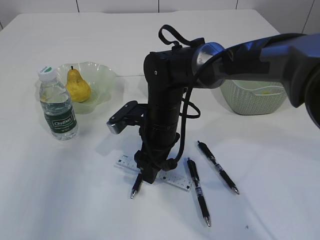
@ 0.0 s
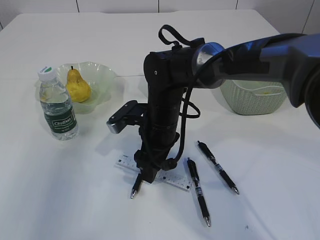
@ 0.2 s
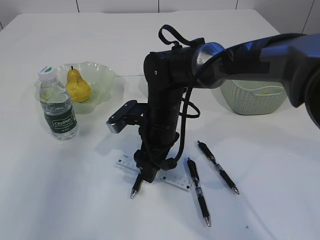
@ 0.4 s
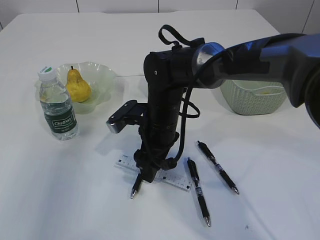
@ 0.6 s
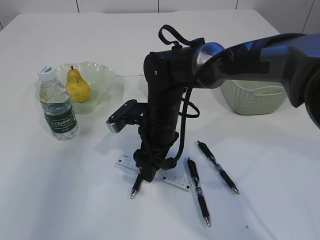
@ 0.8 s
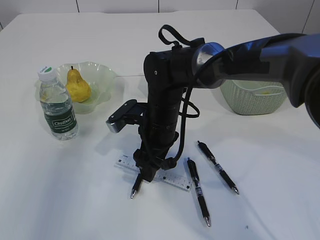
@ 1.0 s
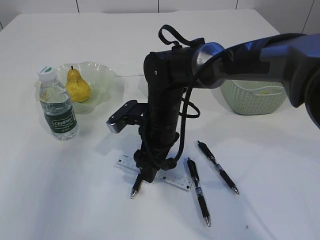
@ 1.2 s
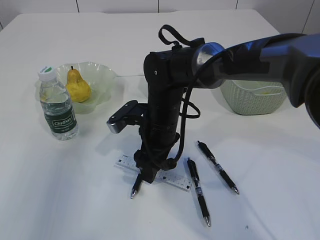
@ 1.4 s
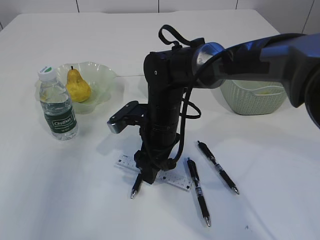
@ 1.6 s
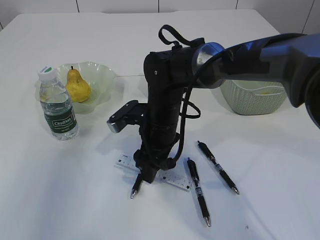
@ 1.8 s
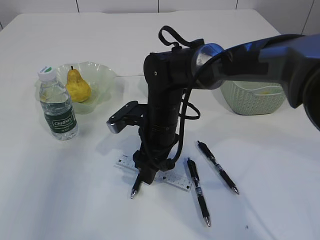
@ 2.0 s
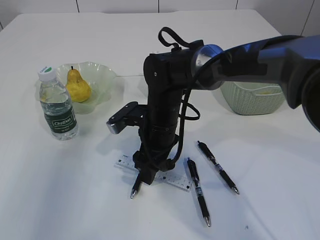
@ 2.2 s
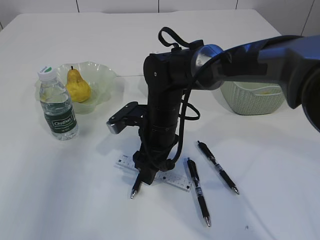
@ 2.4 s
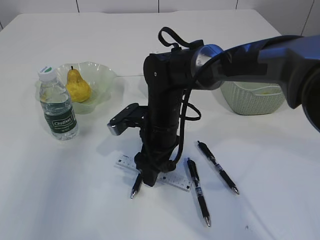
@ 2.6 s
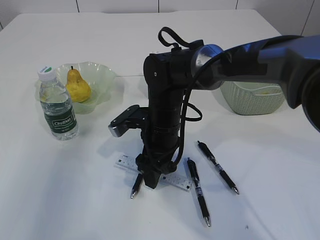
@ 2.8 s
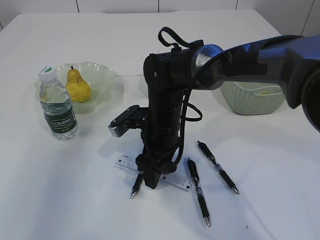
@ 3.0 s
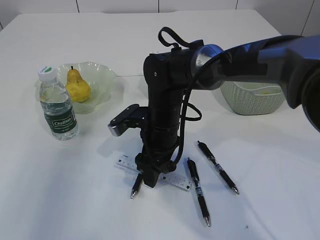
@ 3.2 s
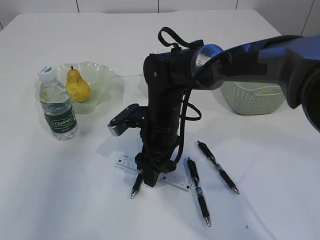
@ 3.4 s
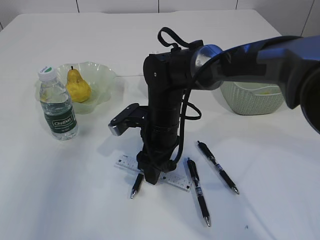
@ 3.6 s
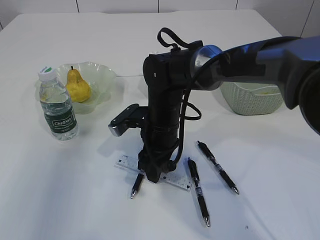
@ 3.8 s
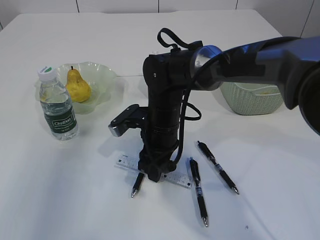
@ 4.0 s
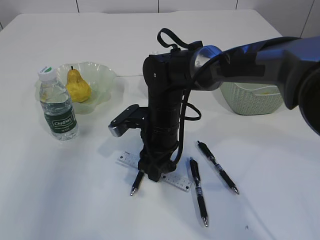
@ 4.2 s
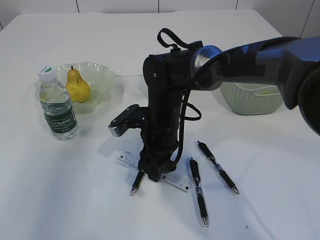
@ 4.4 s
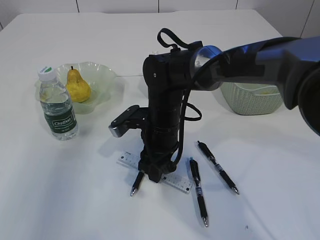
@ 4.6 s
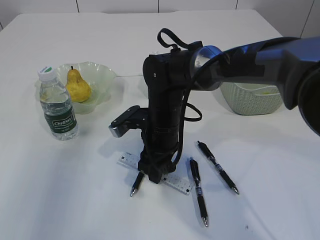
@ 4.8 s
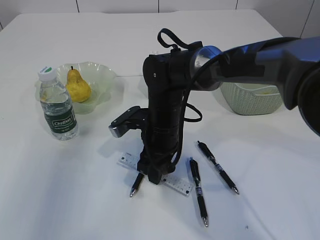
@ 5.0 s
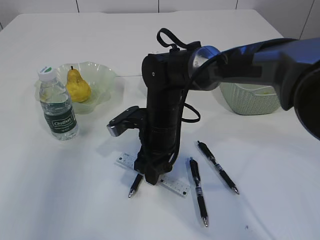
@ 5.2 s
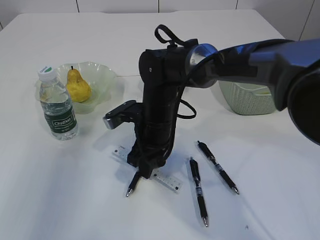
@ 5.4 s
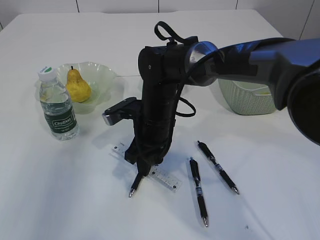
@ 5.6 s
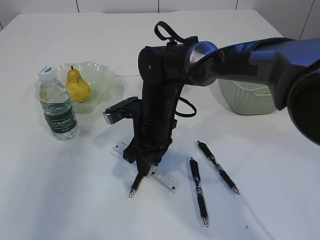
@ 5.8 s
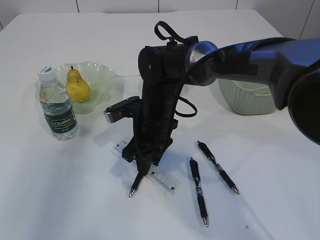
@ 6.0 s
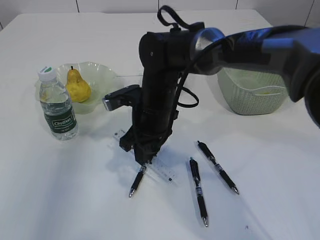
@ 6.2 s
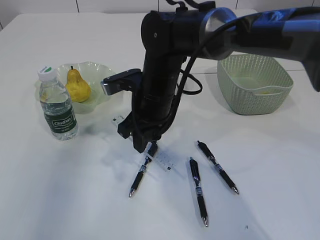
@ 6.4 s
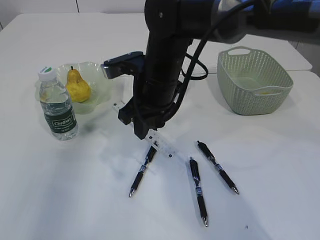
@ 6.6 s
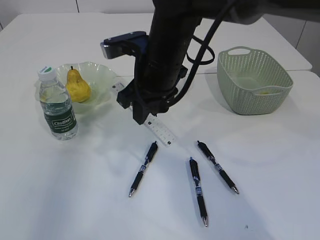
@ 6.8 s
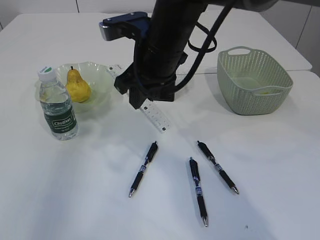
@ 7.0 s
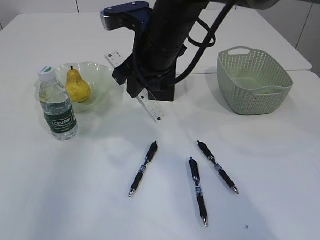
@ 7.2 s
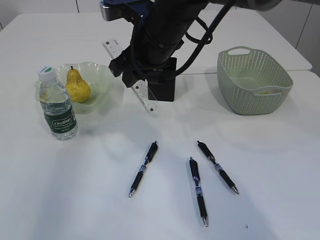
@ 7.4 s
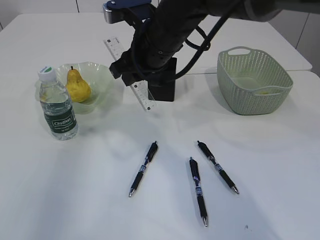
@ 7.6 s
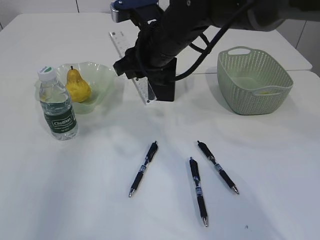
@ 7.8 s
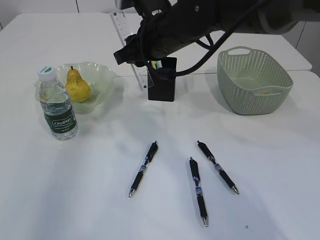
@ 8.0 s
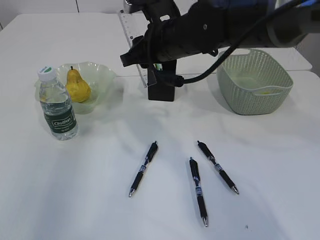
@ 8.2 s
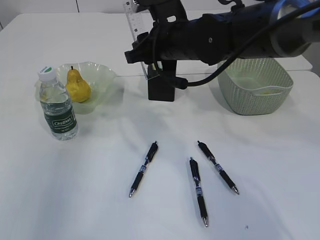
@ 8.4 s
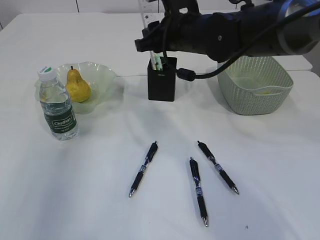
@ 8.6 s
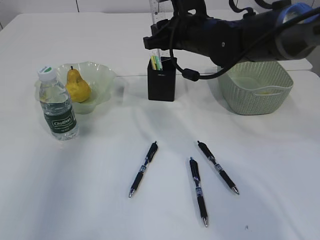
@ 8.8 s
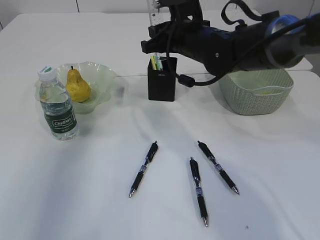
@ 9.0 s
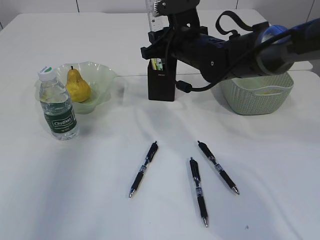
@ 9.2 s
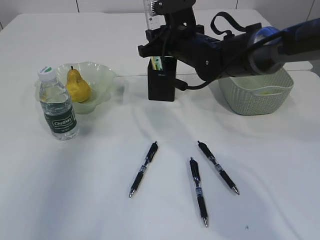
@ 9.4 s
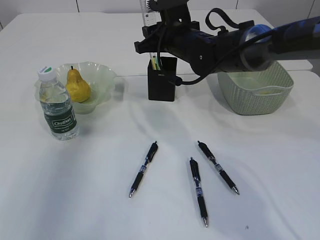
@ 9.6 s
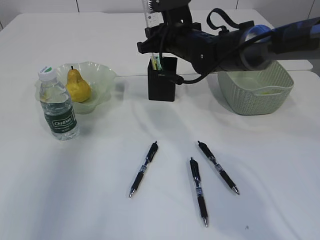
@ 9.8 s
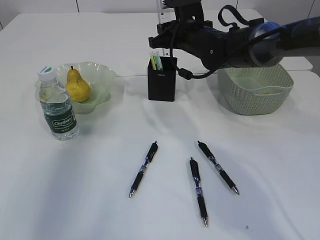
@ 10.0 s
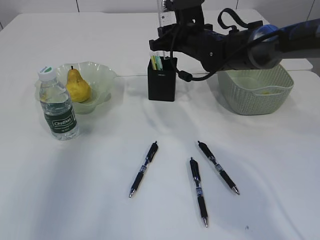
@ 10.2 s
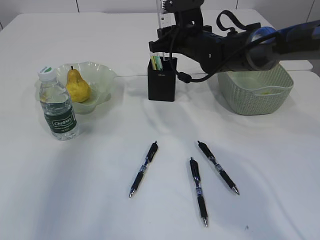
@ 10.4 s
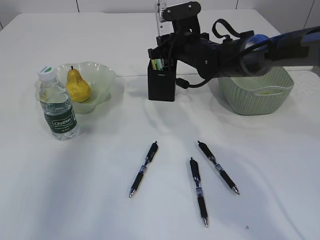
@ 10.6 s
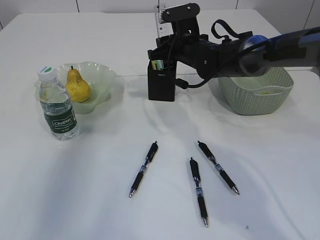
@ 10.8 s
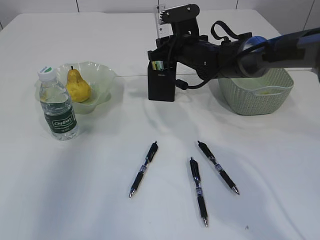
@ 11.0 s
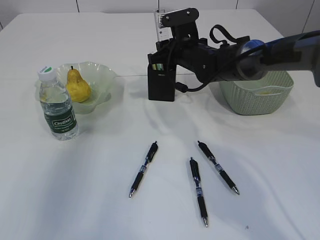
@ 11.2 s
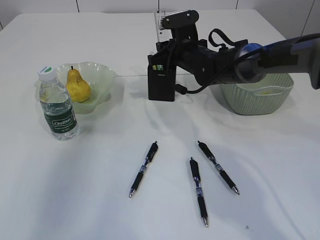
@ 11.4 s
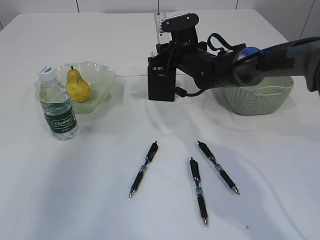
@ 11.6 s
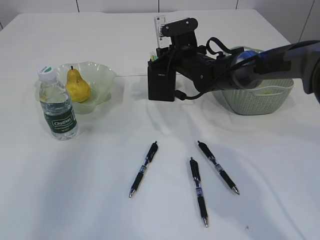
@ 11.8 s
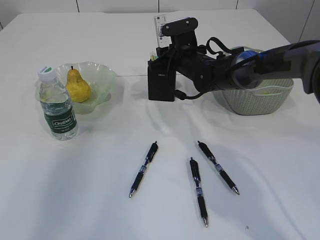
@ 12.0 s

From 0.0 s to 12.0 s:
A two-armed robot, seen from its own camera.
Step, from 0.0 s to 6.4 s: pick up the ruler.
From 0.0 s to 3.0 s: Both grippers stay about where they are.
From 3.0 s to 4.4 s: The right gripper closes.
From 4.4 s to 6.0 s: There are only small adjustments of the grippers.
From 6.0 s to 7.6 s: The right gripper goes about 15 cm upward.
From 7.6 s to 9.0 s: The right gripper is displaced to the right and forward by approximately 10 cm.
From 9.0 s to 10.4 s: The right gripper is displaced forward by about 5 cm.
From 10.4 s to 12.0 s: The right gripper shifts some 5 cm downward.

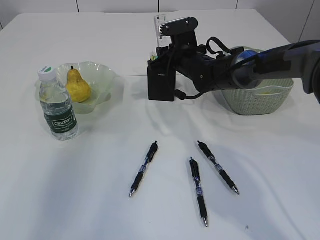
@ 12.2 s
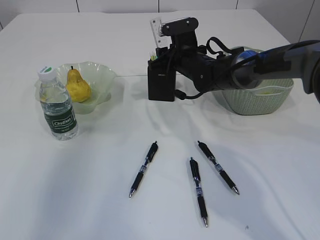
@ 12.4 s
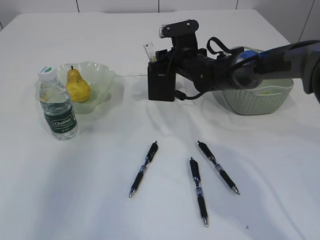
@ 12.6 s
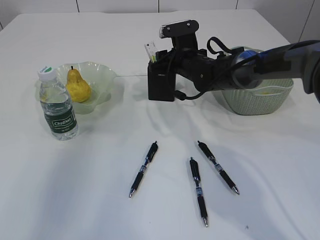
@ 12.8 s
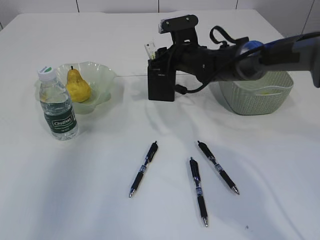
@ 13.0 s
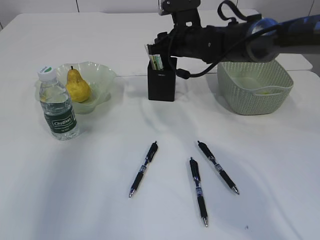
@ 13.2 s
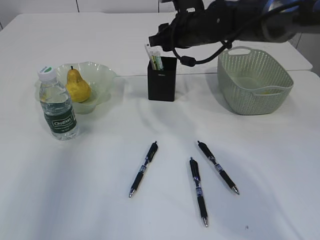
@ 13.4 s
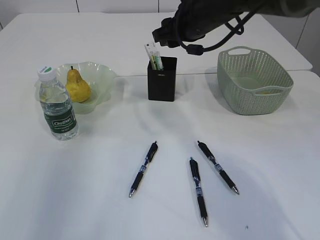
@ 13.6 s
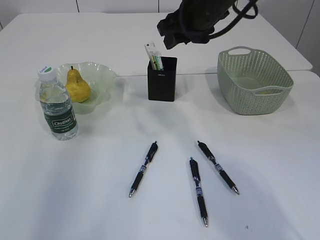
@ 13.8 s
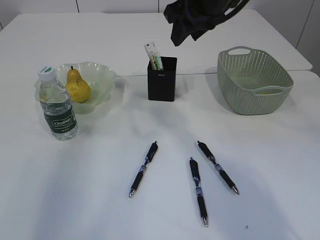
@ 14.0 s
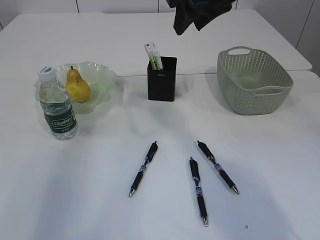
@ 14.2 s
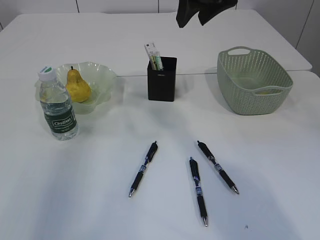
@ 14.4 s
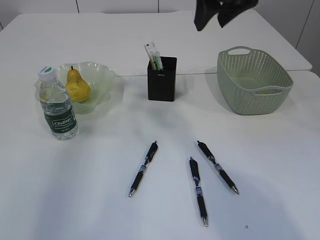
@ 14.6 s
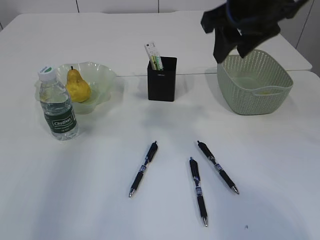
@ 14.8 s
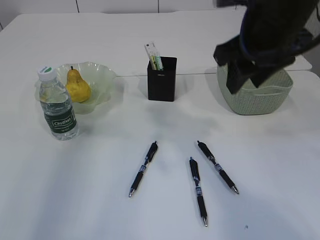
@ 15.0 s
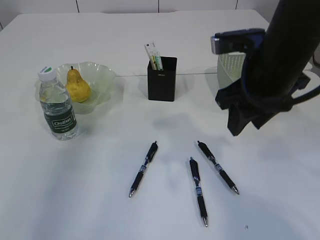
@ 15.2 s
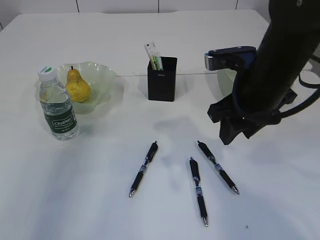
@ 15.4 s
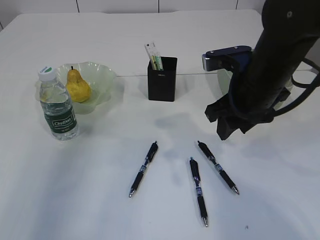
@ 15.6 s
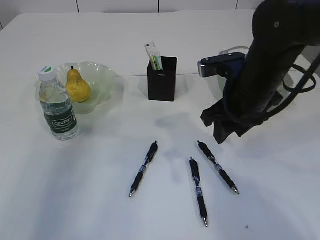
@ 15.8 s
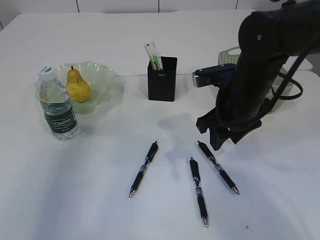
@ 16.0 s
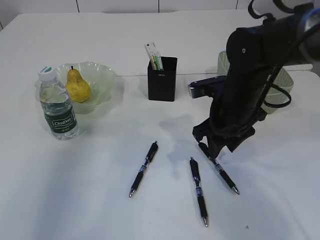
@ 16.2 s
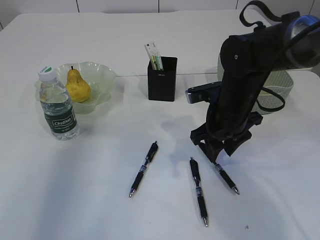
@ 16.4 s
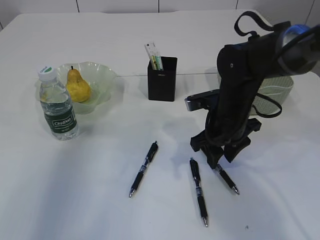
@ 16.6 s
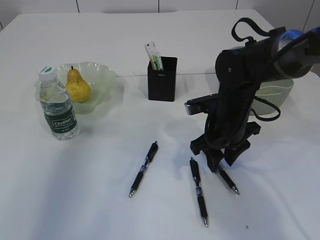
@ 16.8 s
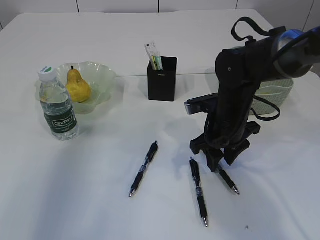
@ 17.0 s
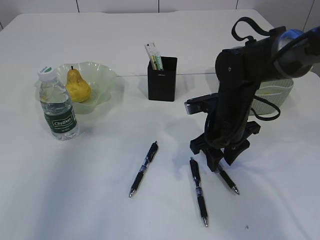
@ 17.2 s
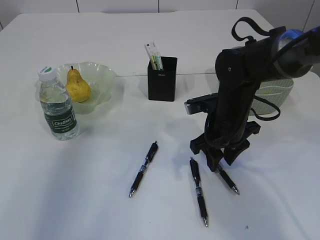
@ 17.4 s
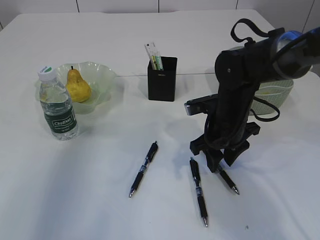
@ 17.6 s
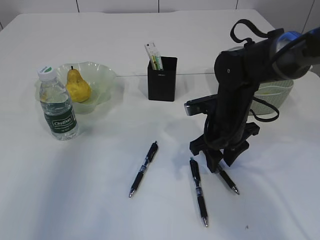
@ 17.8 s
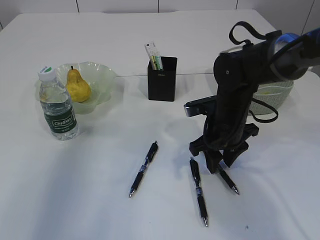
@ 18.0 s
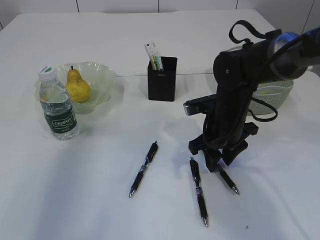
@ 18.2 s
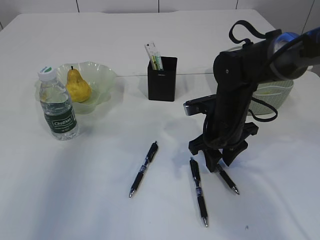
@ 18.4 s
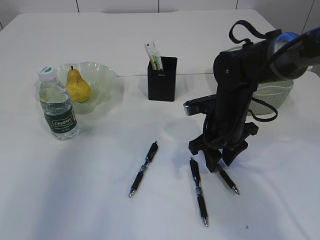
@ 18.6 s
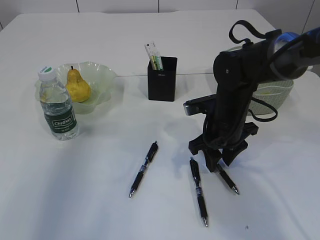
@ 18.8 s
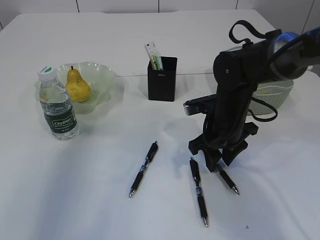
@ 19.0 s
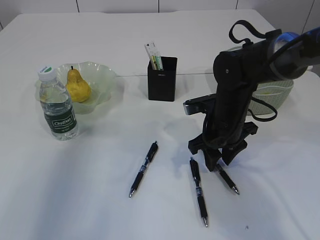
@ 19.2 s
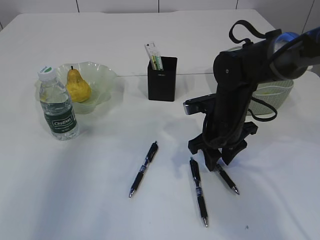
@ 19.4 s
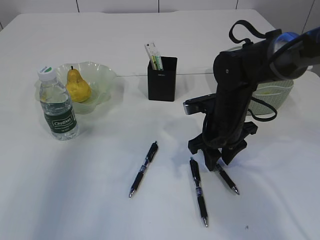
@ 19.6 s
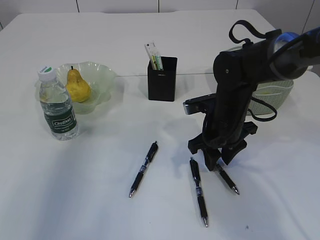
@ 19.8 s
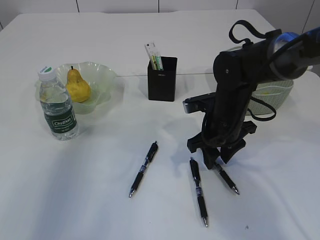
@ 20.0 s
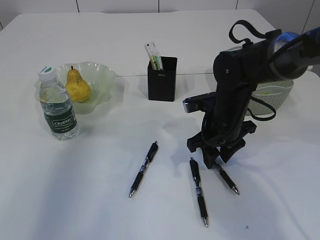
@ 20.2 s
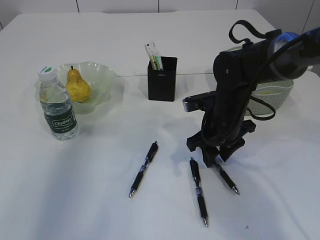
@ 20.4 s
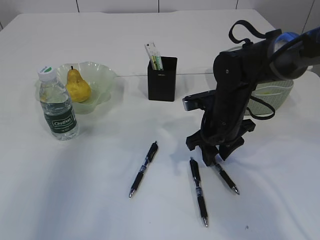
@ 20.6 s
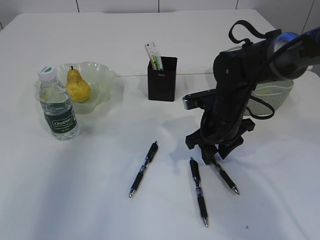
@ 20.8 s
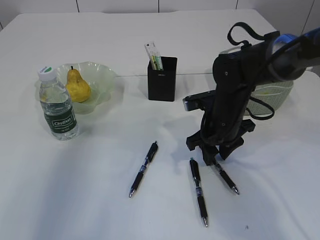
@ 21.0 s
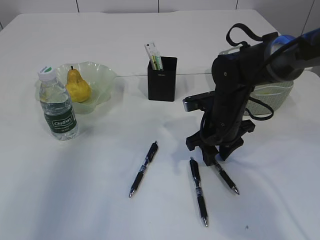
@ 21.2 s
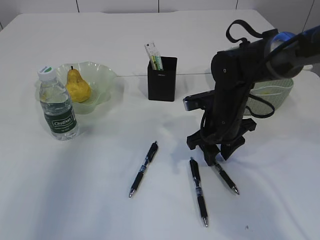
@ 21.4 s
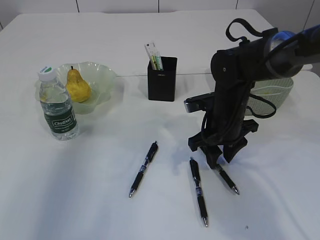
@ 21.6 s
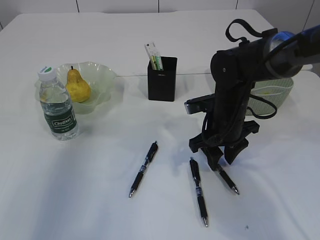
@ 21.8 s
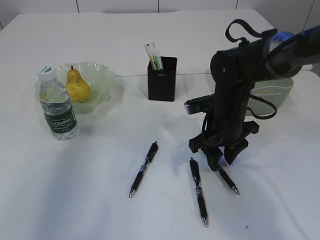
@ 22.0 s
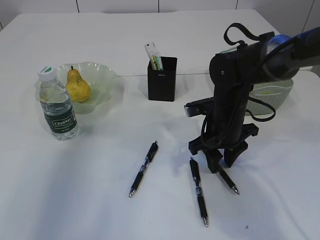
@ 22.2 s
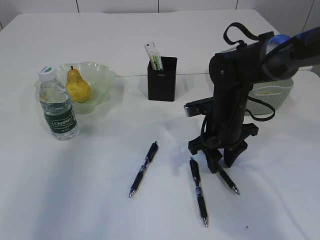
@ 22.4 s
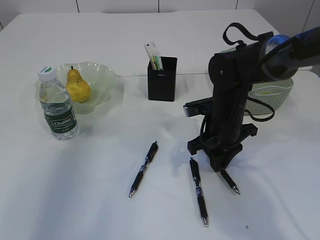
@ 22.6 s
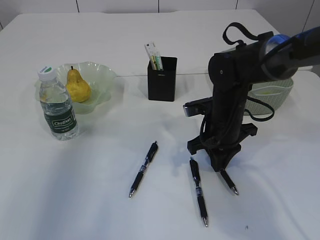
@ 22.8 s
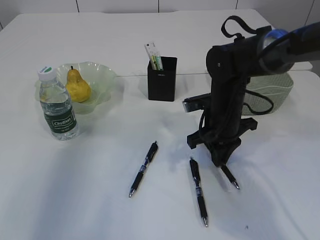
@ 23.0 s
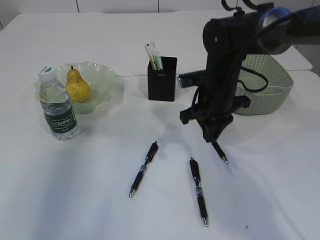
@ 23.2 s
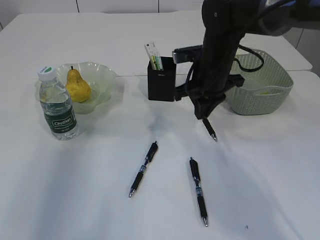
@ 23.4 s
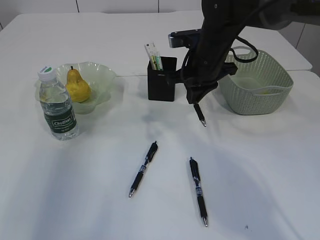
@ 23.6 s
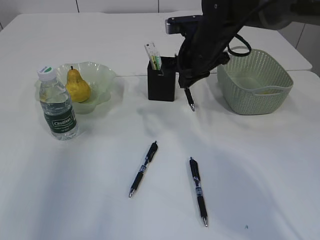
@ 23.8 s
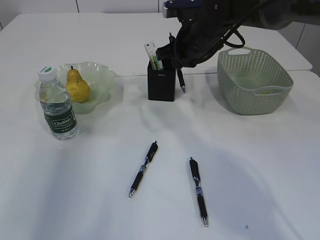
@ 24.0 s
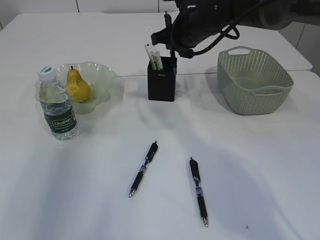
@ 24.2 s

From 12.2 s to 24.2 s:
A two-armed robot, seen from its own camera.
Step, from 13.6 s to 23.2 s: Pick up the pen with right arm.
From 12.2 s to 13.8 s: The right gripper travels upward and backward by approximately 15 cm.
From 13.8 s to 15.2 s: The right gripper travels backward and to the right by roughly 15 cm.
From 15.2 s to 16.6 s: The right gripper shifts roughly 15 cm downward and forward.
From 16.6 s to 18.2 s: The grippers make only small movements.
From 18.2 s to 19.8 s: The two grippers keep their place.
From 19.8 s to 21.2 s: Neither gripper changes place.
From 21.2 s to 22.6 s: There are only small adjustments of the grippers.
From 22.6 s to 24.2 s: The right gripper moves upward and forward, about 15 cm.
